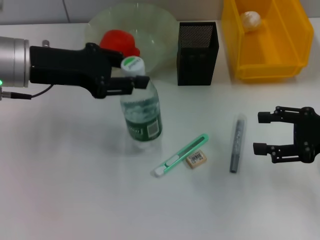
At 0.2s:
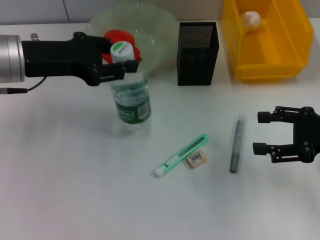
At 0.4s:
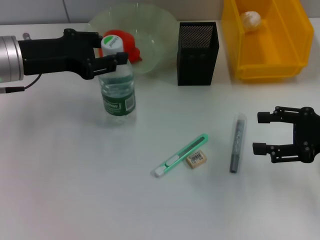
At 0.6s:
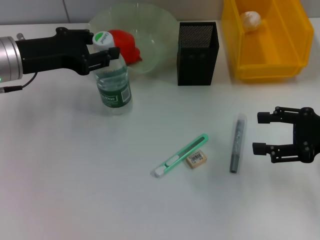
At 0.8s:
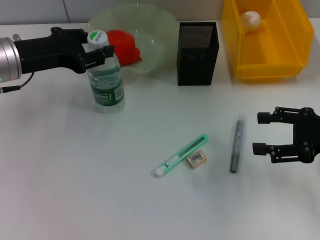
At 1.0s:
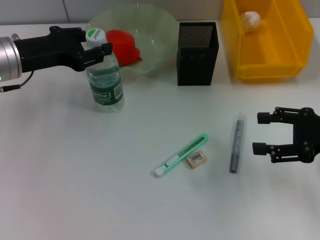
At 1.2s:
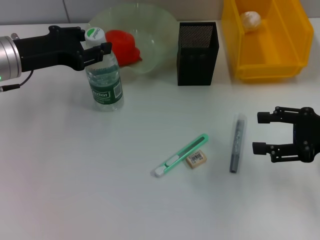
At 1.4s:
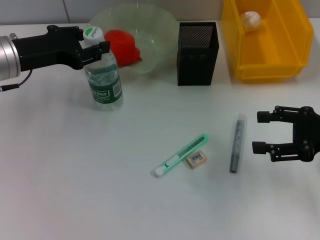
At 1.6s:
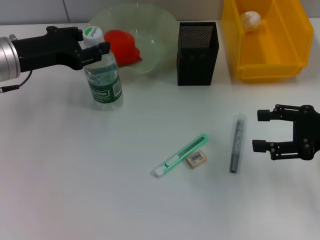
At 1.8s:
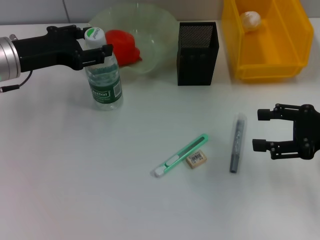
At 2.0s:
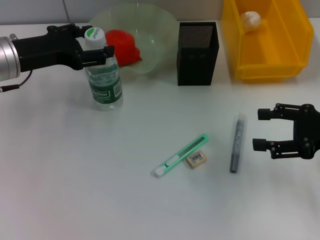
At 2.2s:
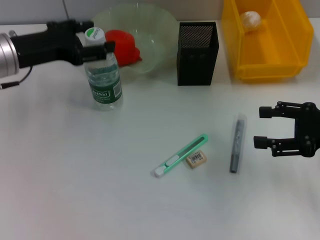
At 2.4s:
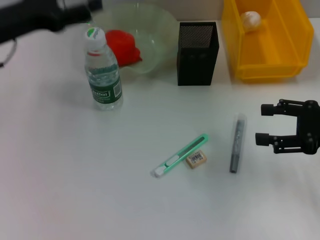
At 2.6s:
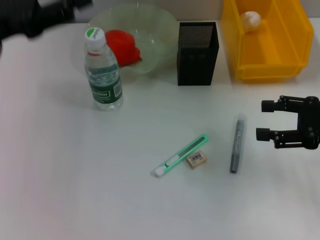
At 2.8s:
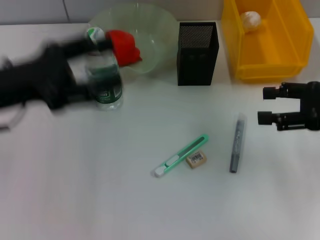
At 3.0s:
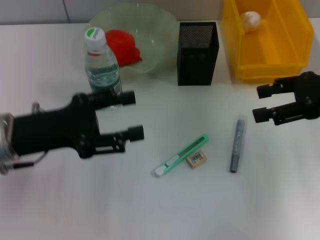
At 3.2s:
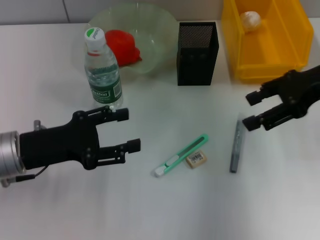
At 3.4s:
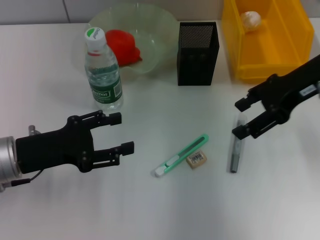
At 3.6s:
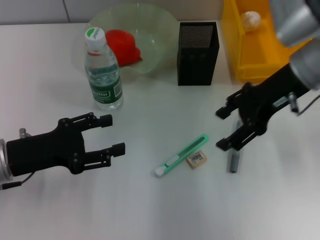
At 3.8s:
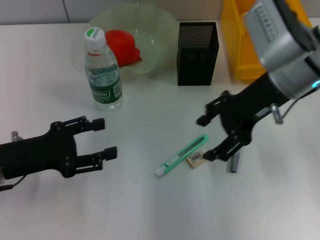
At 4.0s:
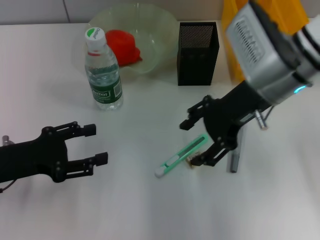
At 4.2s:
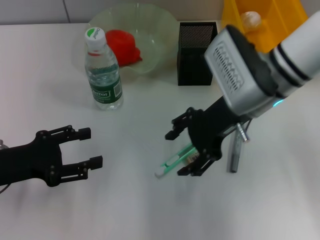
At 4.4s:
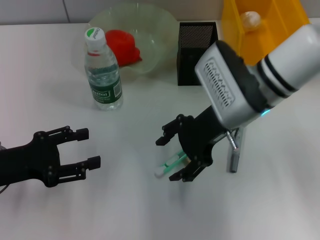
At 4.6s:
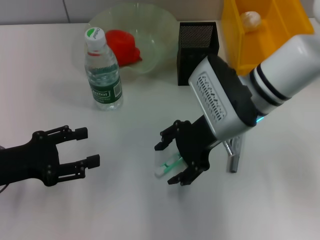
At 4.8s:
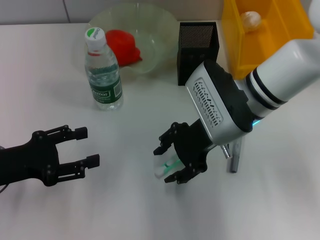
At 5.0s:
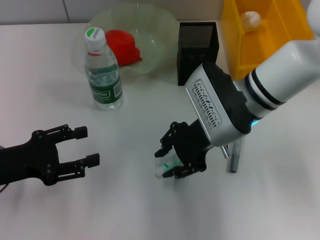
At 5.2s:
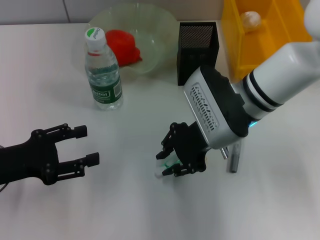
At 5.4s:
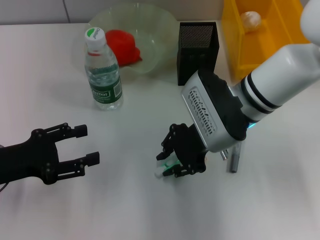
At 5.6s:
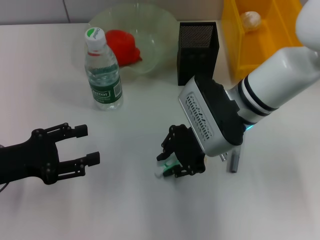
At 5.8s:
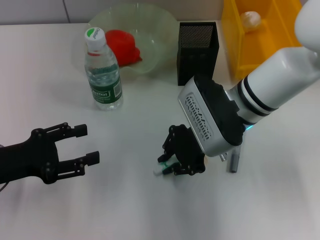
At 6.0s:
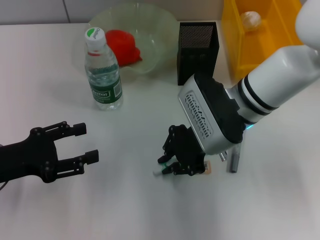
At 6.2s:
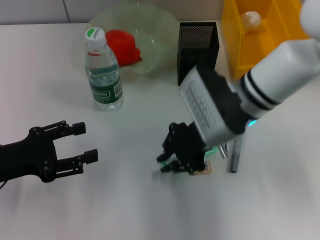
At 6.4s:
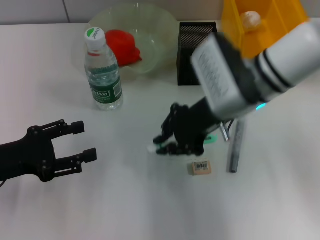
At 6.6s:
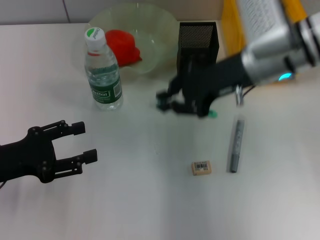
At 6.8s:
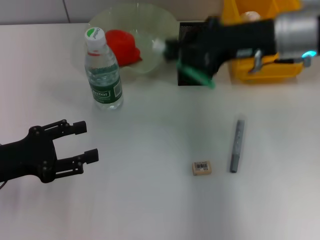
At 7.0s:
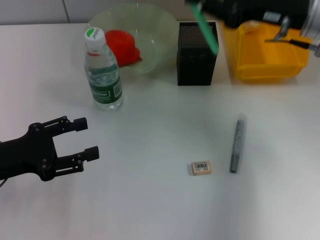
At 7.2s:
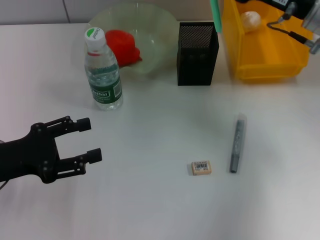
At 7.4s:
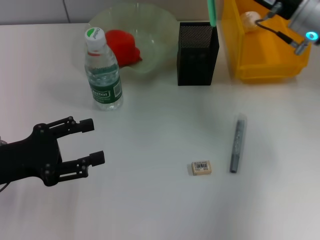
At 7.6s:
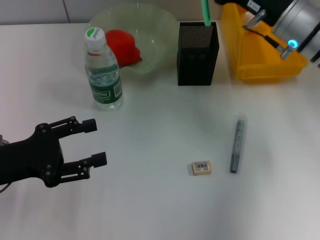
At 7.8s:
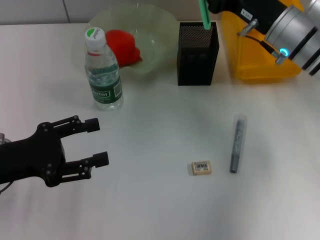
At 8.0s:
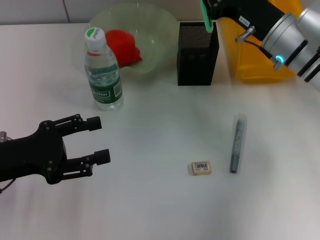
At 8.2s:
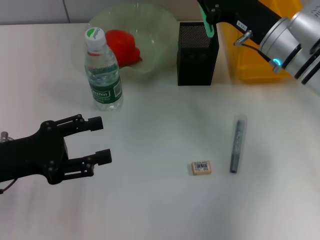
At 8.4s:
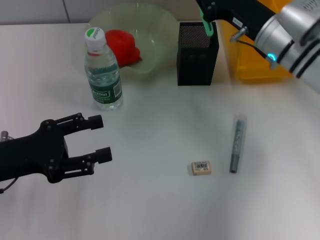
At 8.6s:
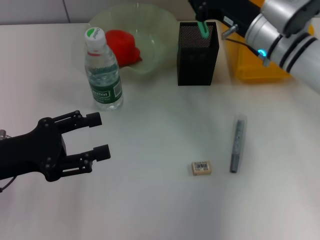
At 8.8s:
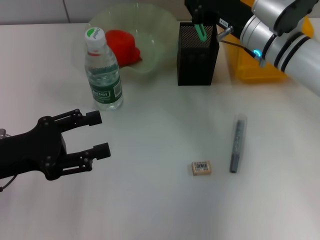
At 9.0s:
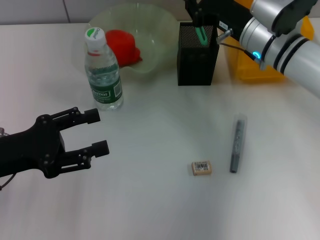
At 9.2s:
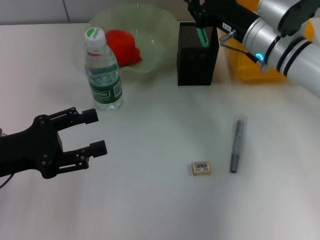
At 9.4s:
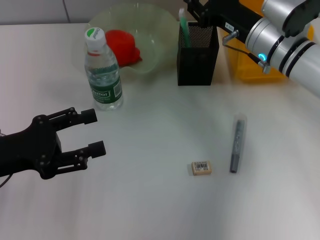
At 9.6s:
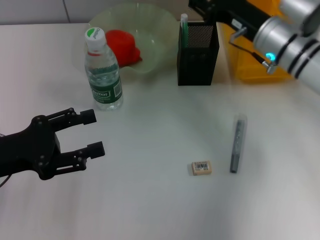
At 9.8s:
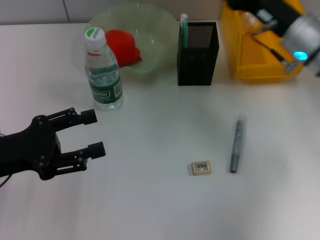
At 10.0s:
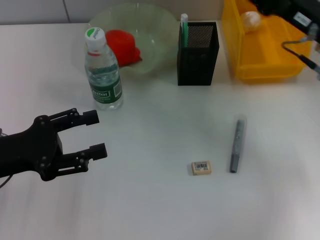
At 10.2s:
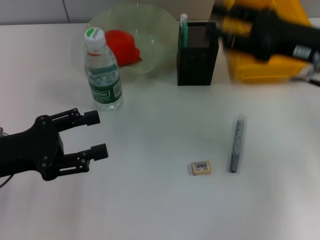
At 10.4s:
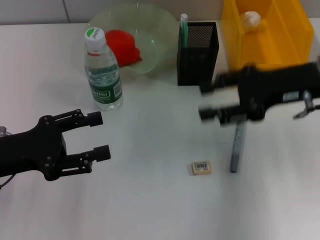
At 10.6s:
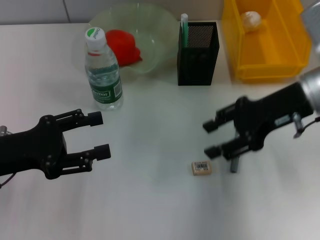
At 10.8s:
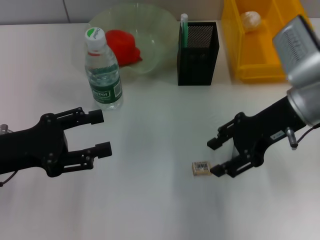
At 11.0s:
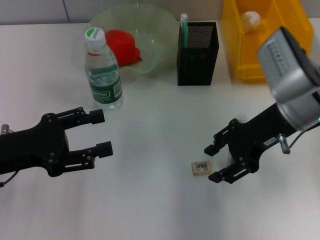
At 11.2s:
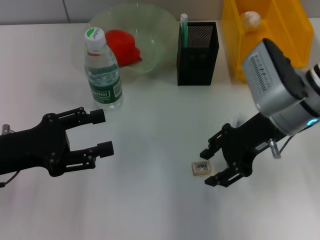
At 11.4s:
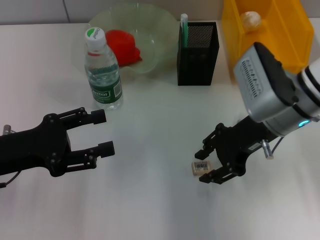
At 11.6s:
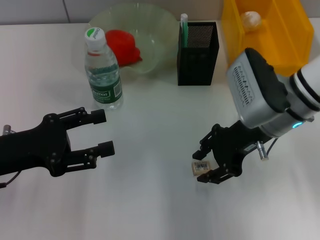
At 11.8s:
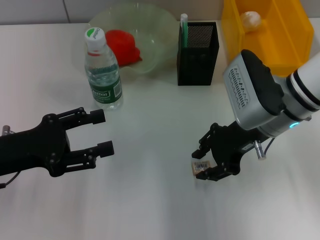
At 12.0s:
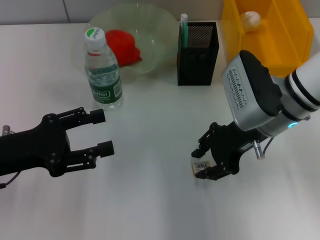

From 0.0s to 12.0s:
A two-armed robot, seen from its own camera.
Step, from 0.0s to 2.2s: Place the water bottle on the table with the left hand.
Step, from 2.4s to 5.8s: Grab the blue utility knife with the right hand.
Step, from 6.0s to 9.6s: Place the blue utility knife into the pen holder with the right hand.
From 0.0s to 1.6s: The left gripper changes place by some 5 cm.
From 1.6s to 3.0s: The right gripper goes some 5 cm upward, while the left gripper heads backward, covering approximately 10 cm, and opens up.
From 3.0s to 4.4s: The right gripper goes some 20 cm to the left, while the left gripper heads to the left, covering about 5 cm.
From 4.4s to 6.0s: The right gripper closes.
From 6.0s to 7.6s: The right gripper is displaced to the right and forward by some 10 cm.
From 7.6s to 9.0s: The right gripper ends up approximately 5 cm from where it was.
From 9.0s to 10.4s: The right gripper is displaced backward, to the right and upward by approximately 10 cm, and opens.
From 10.4s to 12.0s: The right gripper travels to the left by about 10 cm.

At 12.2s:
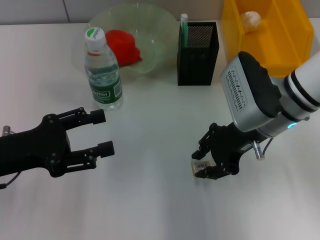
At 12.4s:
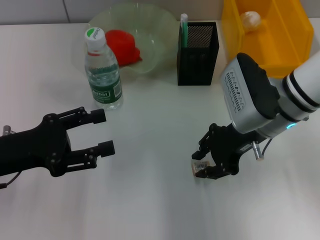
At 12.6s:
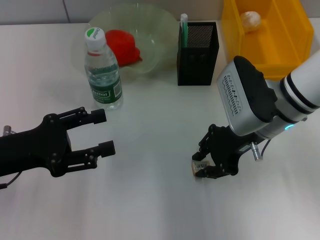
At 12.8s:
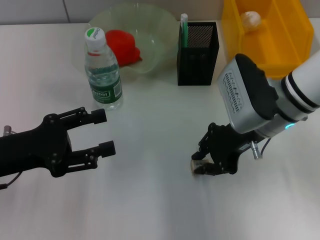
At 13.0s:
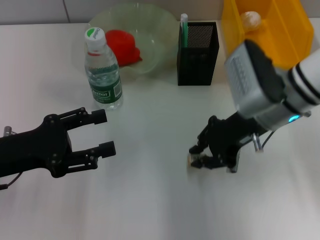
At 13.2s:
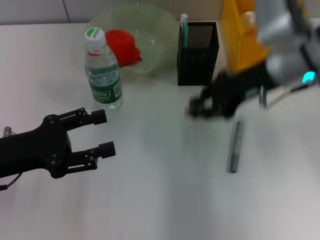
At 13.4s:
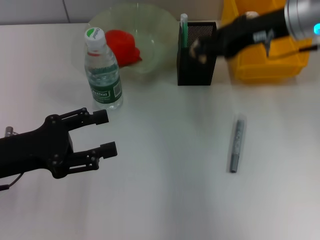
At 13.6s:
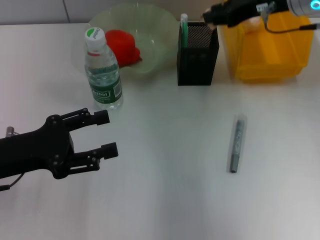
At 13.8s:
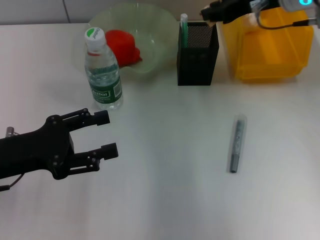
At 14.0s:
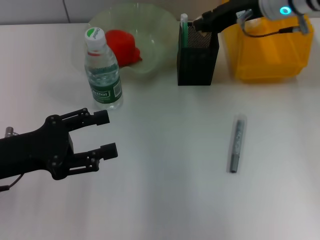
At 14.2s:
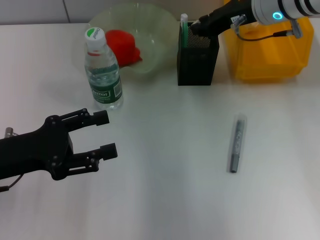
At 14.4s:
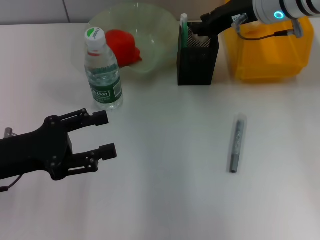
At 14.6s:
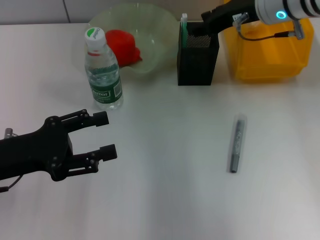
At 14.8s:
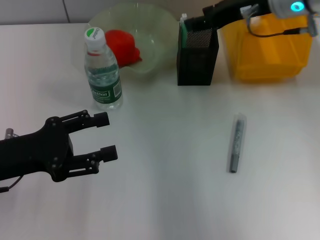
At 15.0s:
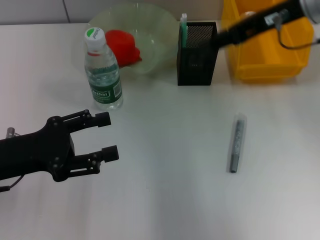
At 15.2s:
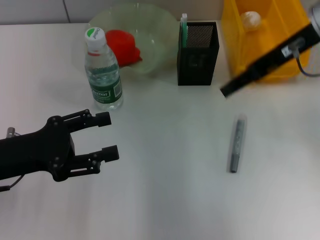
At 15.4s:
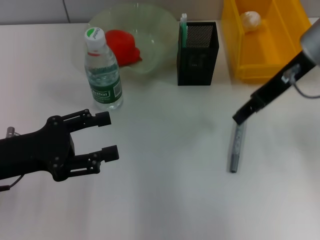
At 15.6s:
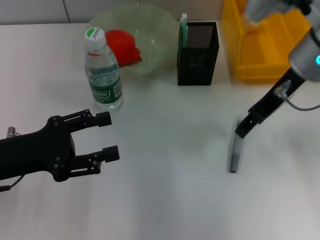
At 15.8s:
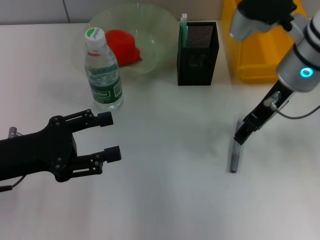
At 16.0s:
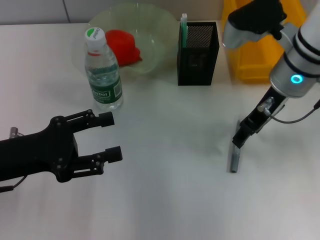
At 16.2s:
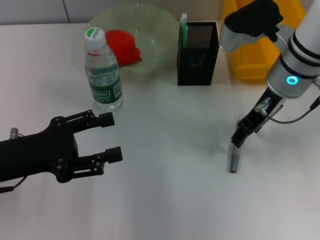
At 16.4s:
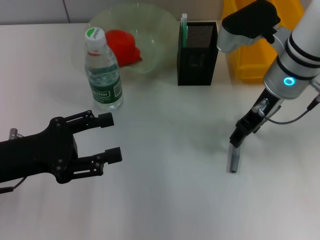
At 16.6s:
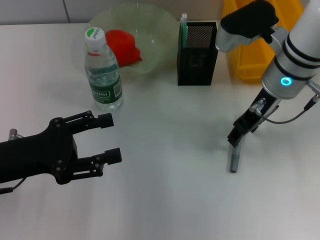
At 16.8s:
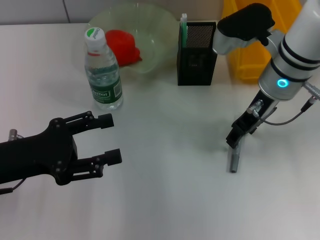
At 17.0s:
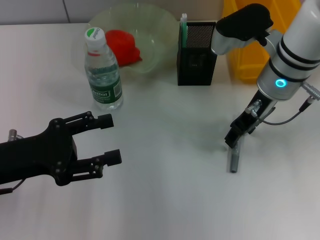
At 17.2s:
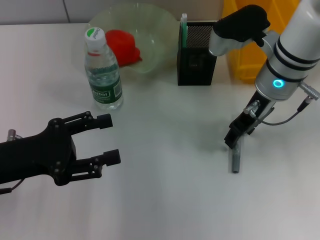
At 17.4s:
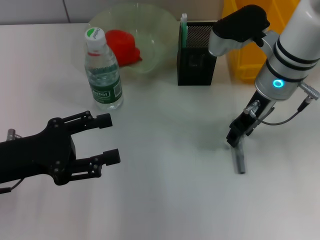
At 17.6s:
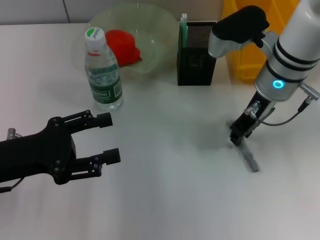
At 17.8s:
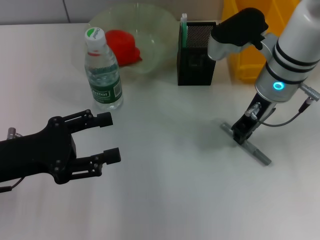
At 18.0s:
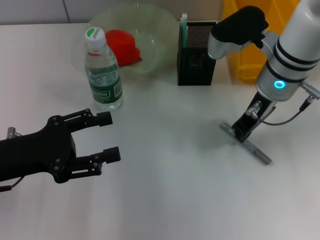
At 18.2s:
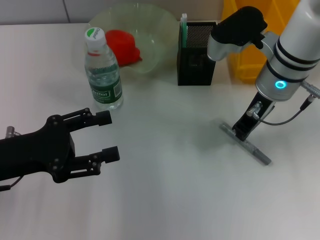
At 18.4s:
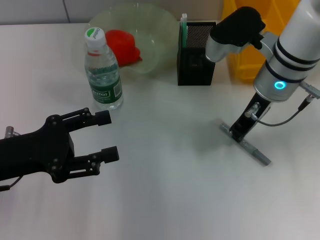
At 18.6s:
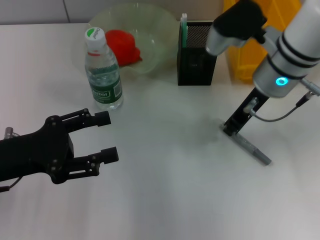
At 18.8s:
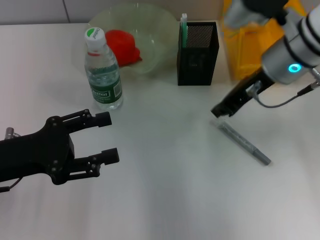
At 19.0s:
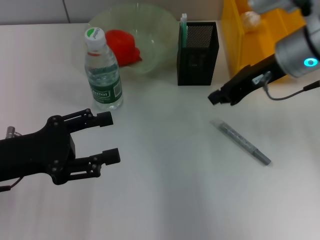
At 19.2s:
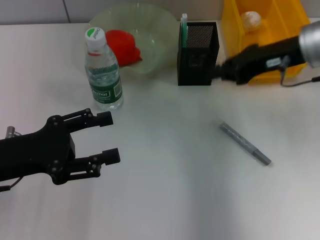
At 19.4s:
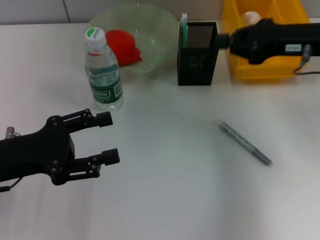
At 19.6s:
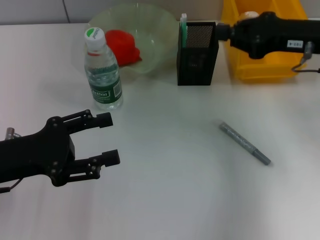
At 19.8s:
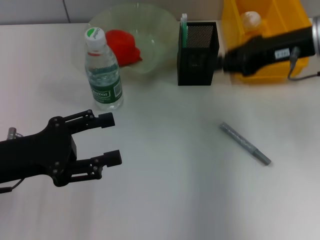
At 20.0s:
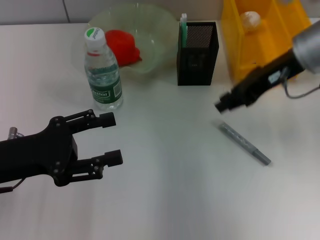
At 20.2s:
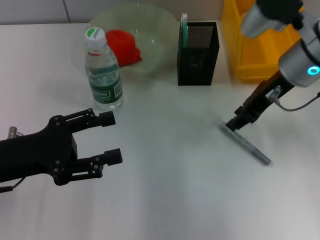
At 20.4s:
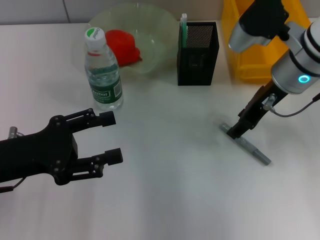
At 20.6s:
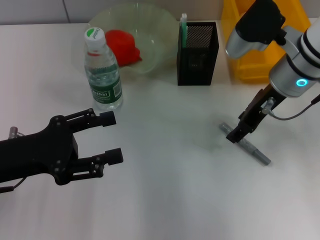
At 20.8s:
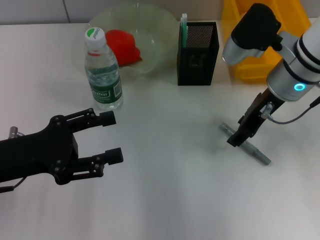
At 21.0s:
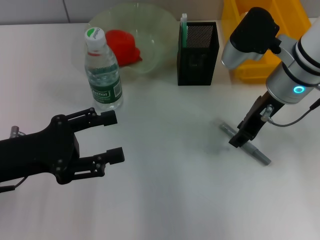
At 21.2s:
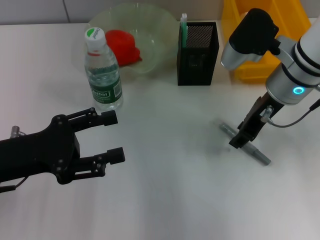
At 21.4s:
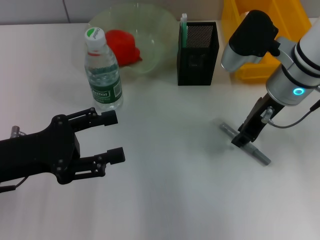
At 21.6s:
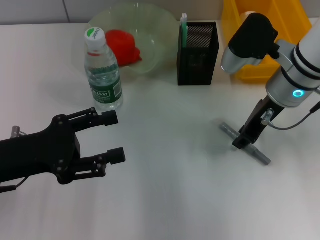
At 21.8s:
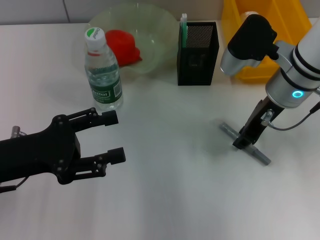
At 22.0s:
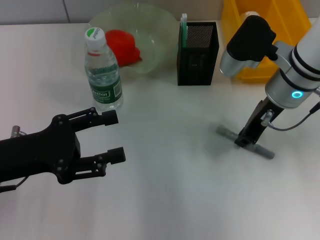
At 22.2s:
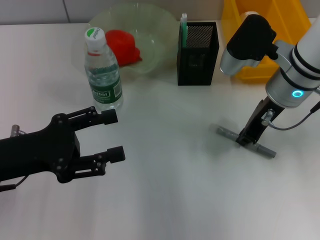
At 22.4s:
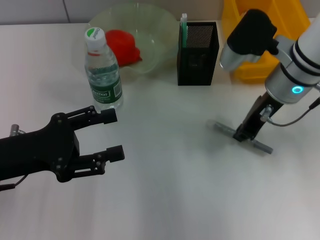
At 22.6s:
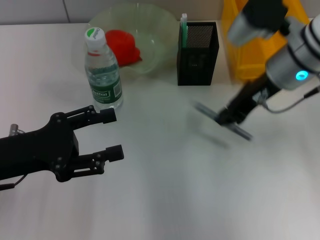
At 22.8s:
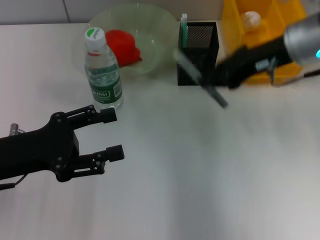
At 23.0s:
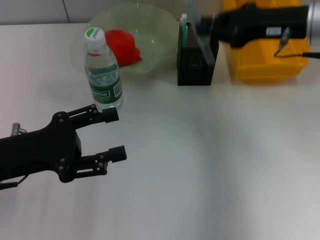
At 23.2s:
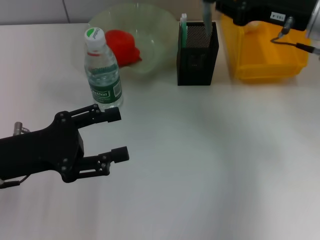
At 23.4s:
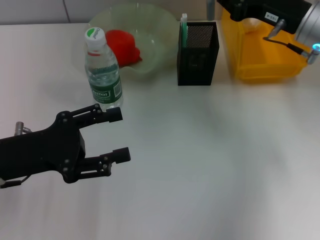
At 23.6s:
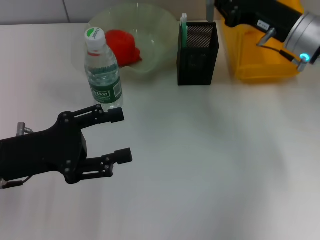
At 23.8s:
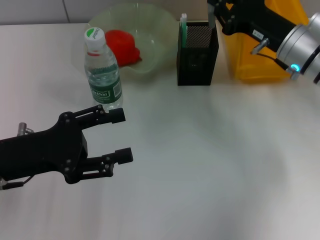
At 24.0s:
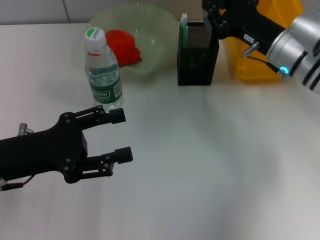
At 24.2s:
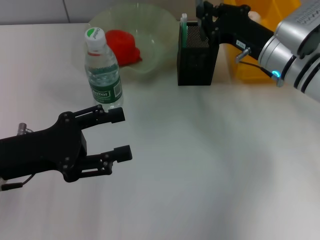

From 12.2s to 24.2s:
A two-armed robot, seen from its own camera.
Step, from 13.0s to 14.4s: Put the eraser into the pen holder with the right hand.
Step, from 14.6s to 21.8s: Grab the gray glue with the right hand.
From 12.2s to 13.8s: The right gripper goes roughly 15 cm forward and upward.
From 13.8s to 15.2s: The right gripper is displaced backward by some 5 cm, and opens.
From 15.2s to 16.6s: The right gripper moves downward, approximately 10 cm.
From 16.6s to 18.2s: The right gripper closes up.
From 18.2s to 19.8s: The right gripper goes roughly 10 cm to the right.
From 19.8s to 21.2s: The right gripper is displaced to the left by some 5 cm, and opens.
From 21.2s to 22.6s: The right gripper closes.
From 22.6s to 24.2s: The right gripper is displaced downward by some 10 cm.
